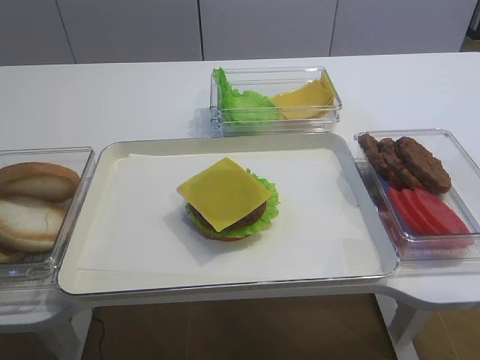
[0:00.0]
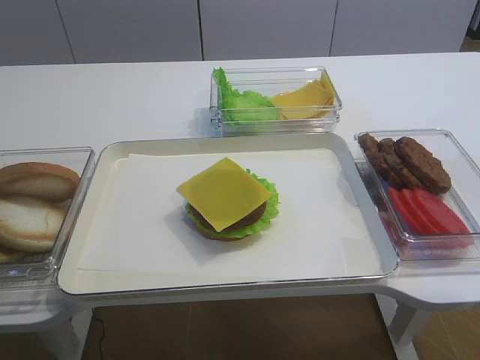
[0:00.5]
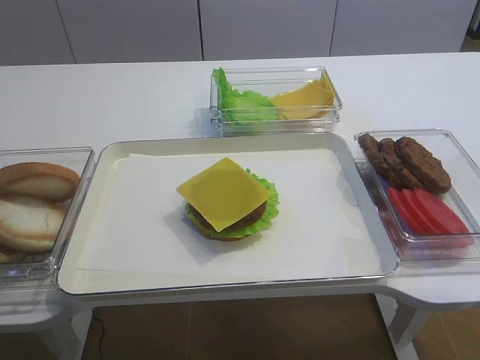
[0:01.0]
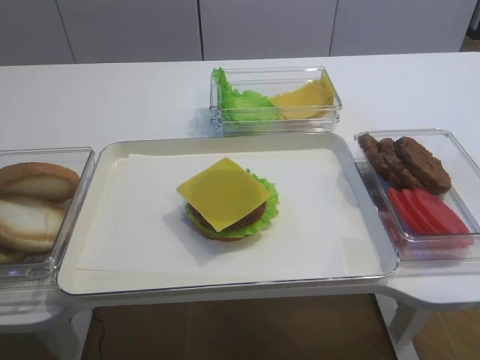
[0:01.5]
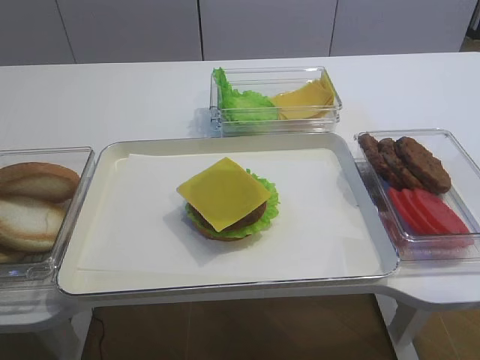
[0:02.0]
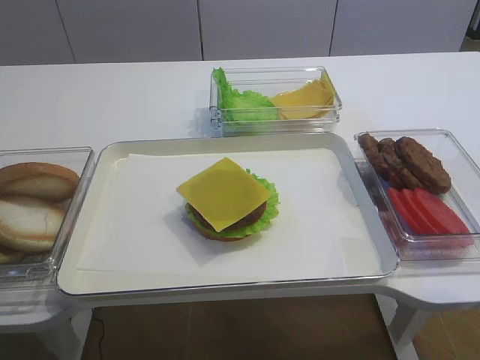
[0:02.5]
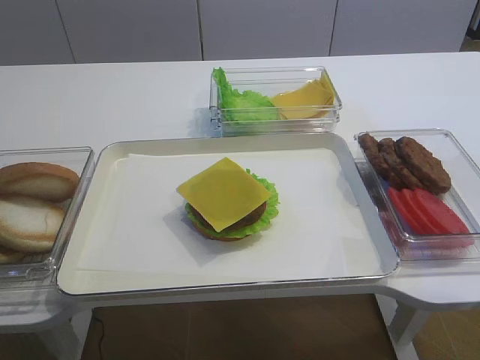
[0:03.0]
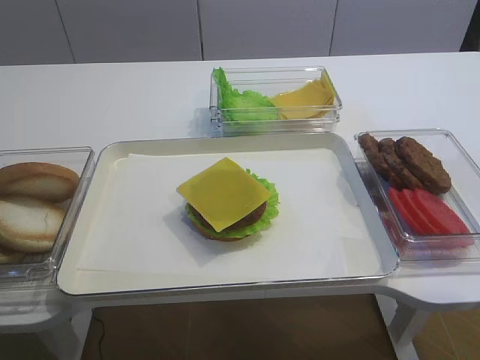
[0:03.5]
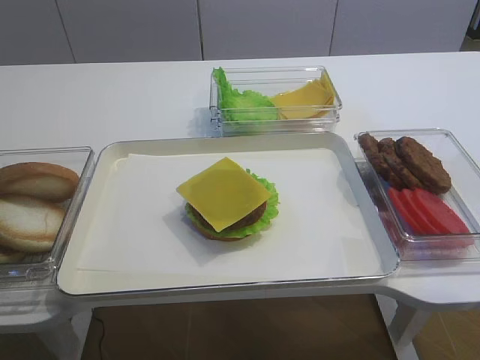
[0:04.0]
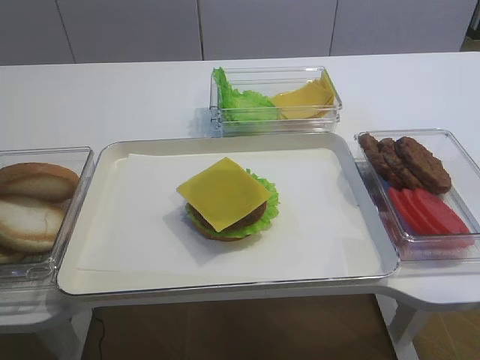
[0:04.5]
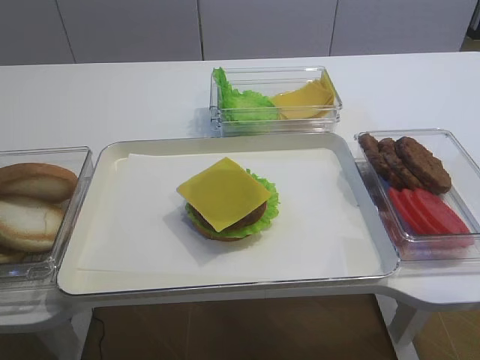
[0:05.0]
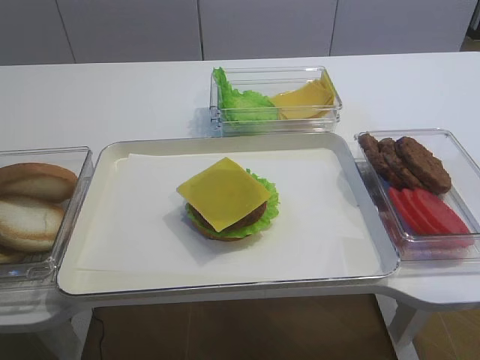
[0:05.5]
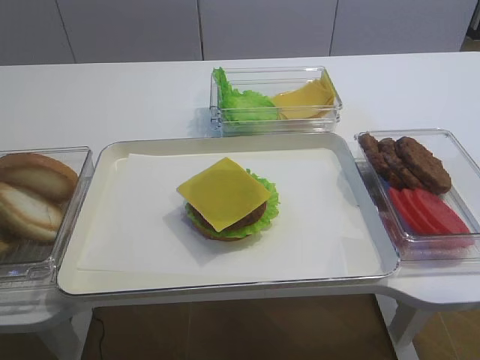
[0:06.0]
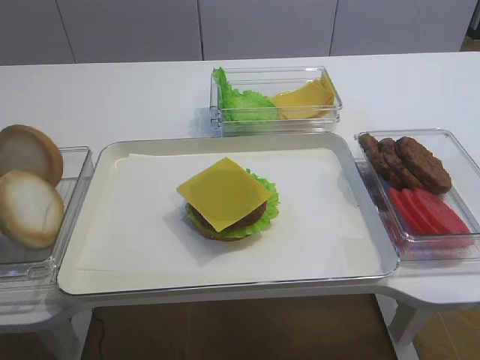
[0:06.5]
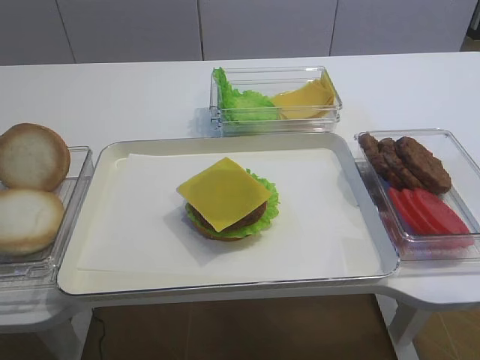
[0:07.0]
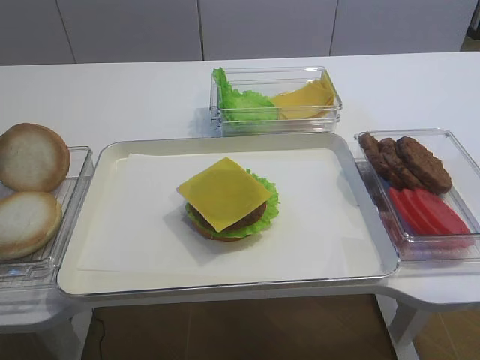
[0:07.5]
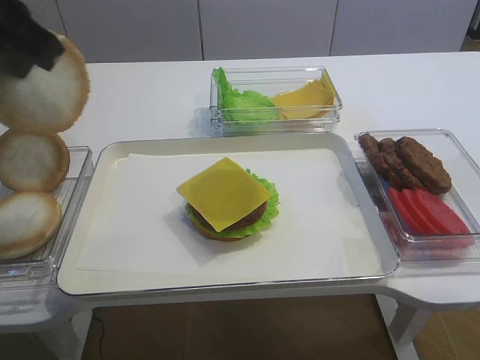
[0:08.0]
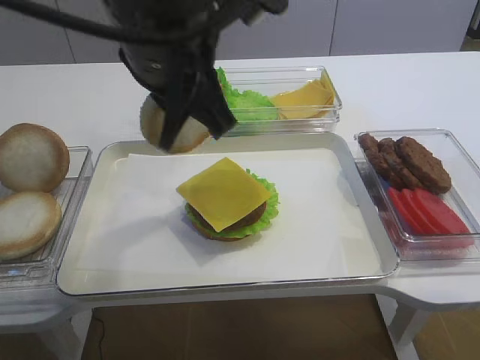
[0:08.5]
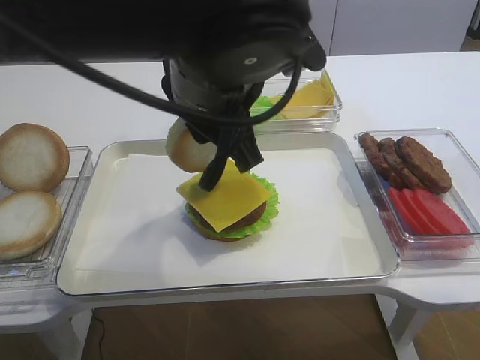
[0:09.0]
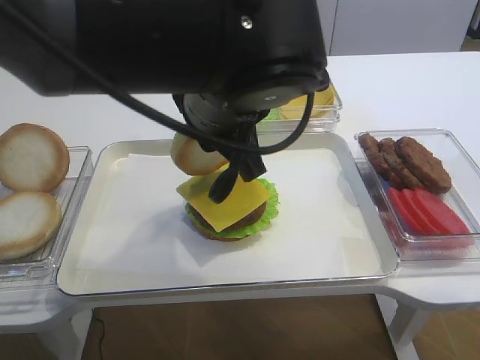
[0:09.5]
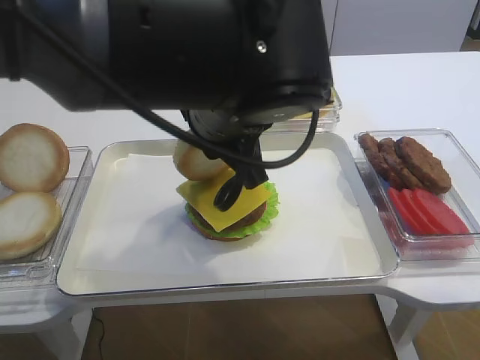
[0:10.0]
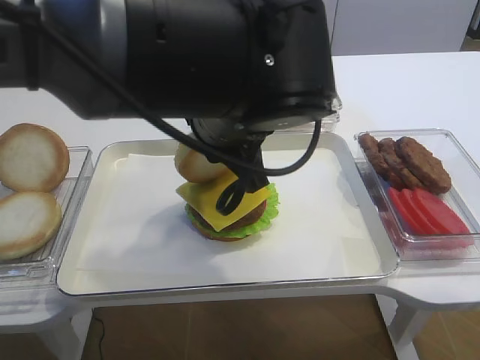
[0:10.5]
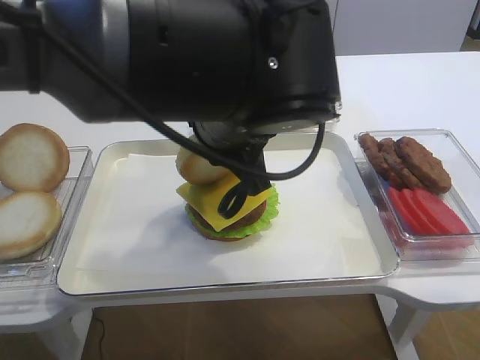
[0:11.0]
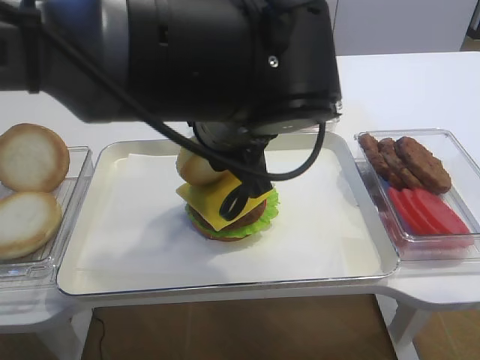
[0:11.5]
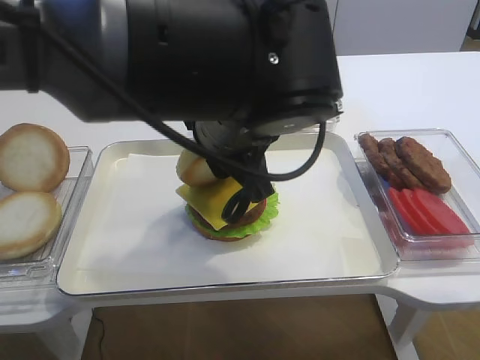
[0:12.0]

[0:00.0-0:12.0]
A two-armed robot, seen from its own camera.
Step, 0:00.0 to 0:07.5: Pick up the hamburger lid with the left gripper.
0:04.0 to 0:06.0: The left gripper closes.
0:06.0 to 0:08.0: The left gripper is displaced upward and to the right by roughly 20 cm.
0:08.0 to 0:10.0: The left gripper goes roughly 20 cm to the right and downward.
0:10.0 to 0:12.0: The left gripper opens.

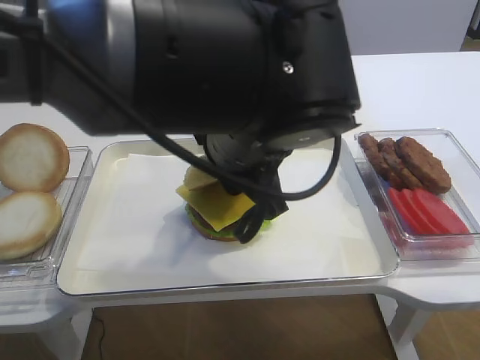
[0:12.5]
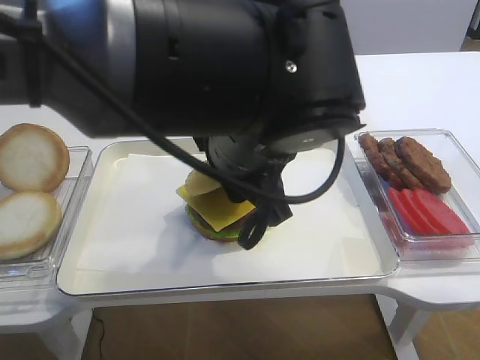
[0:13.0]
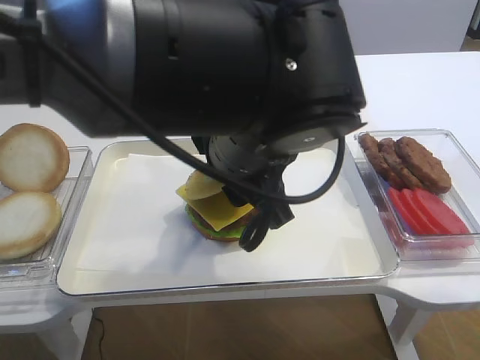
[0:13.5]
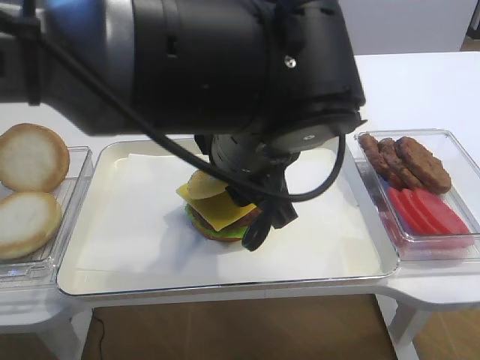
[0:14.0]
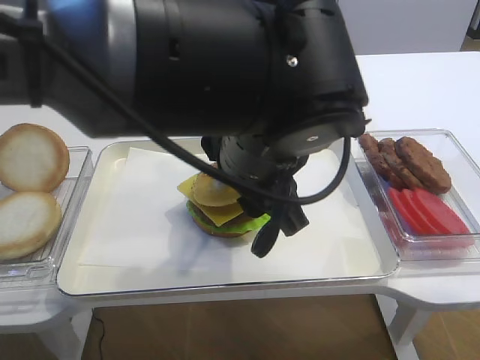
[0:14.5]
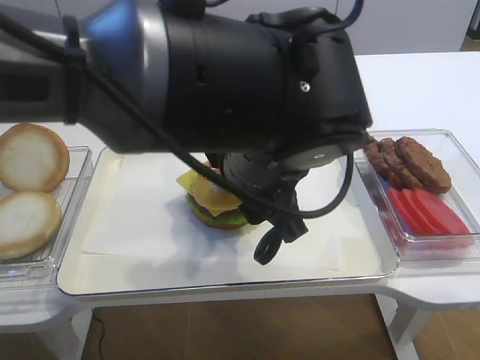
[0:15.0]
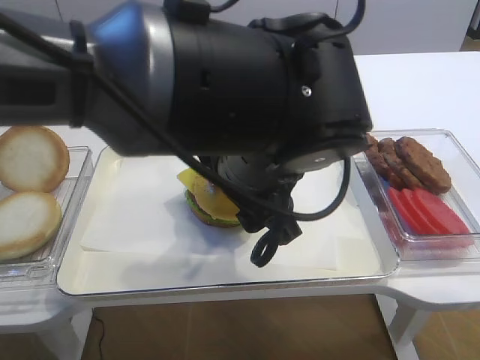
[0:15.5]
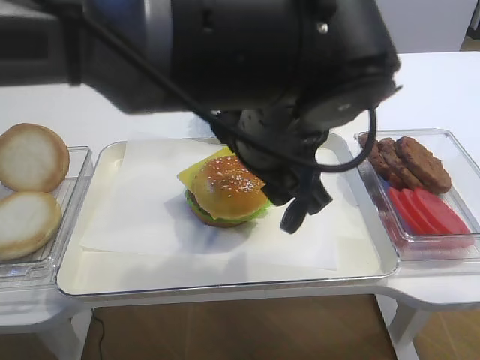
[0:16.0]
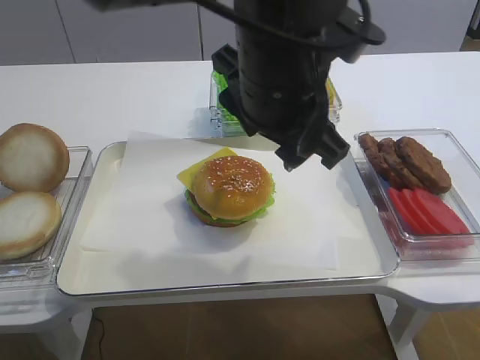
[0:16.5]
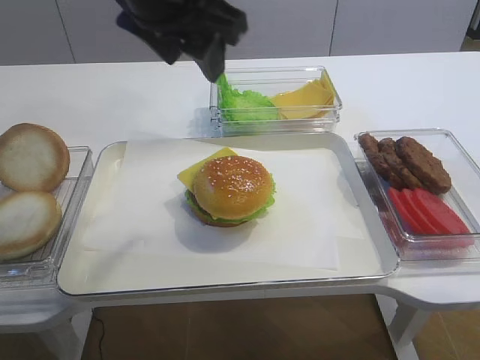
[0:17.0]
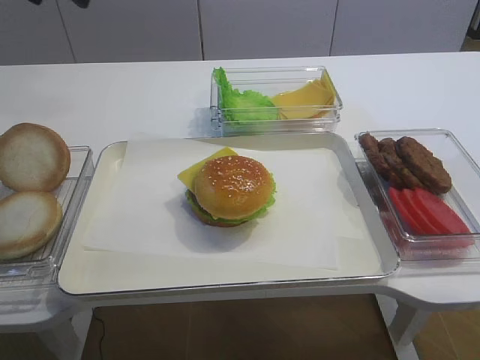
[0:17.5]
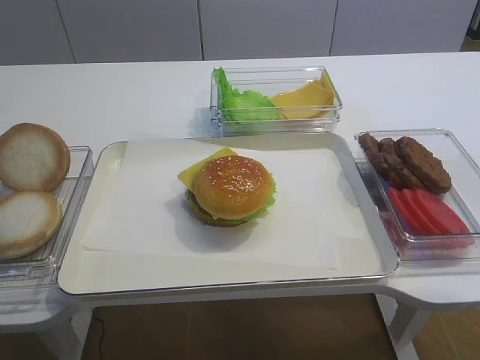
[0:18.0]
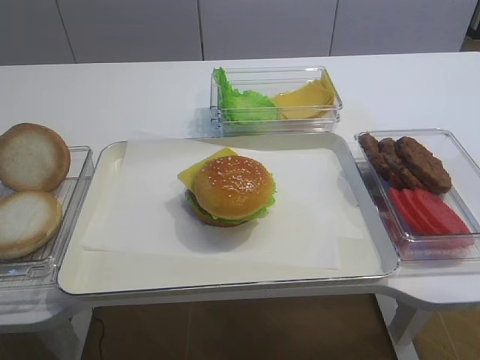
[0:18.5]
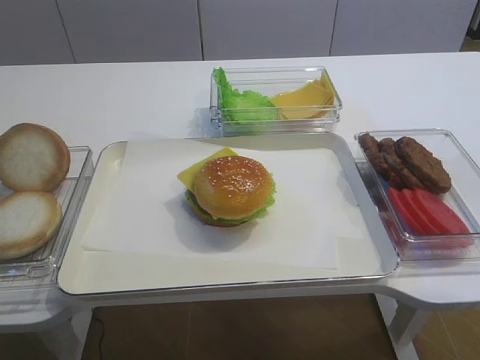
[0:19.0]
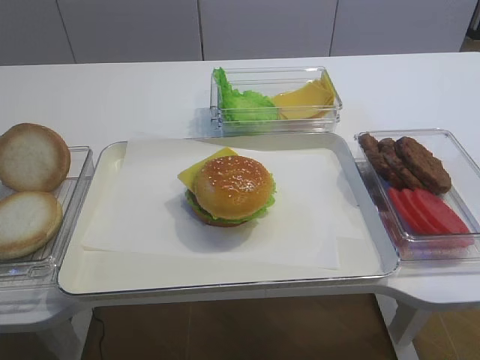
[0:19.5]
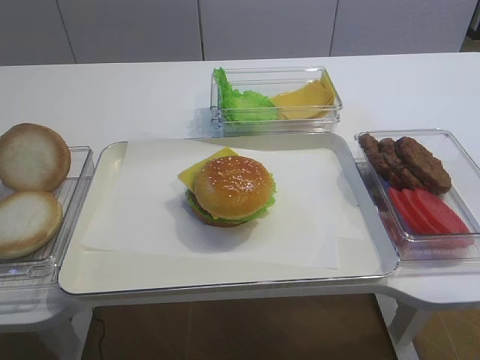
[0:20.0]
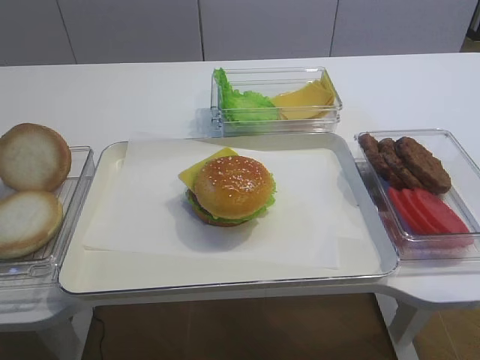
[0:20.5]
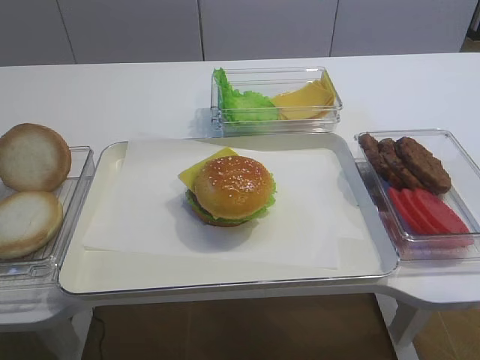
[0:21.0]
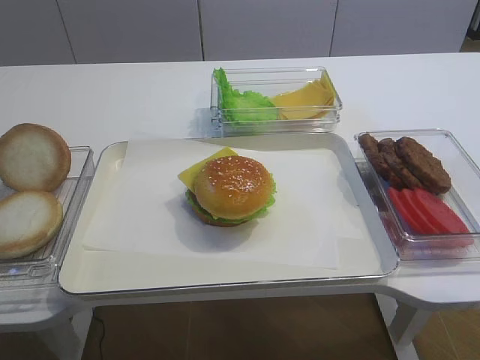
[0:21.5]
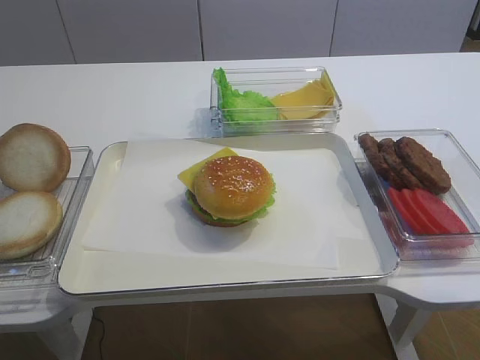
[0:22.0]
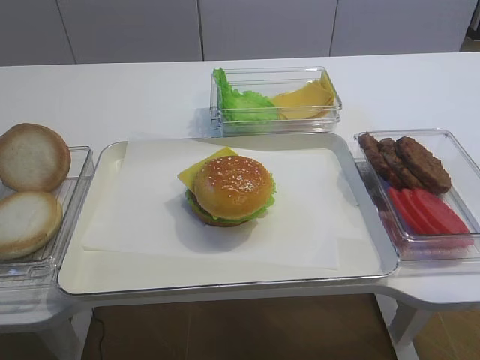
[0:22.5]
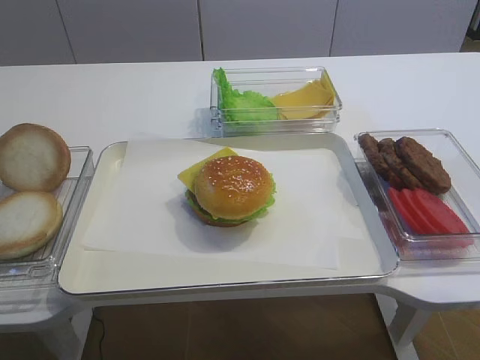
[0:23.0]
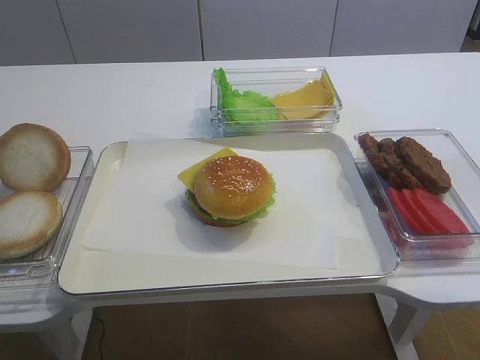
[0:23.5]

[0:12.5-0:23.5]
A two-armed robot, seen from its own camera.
Step, 0:12.5 to 0:15.5: Place the hamburger lid on the cheese slice with the left gripper.
0:12.5 to 0:14.5: The grippers make only small movements.
0:16.0 to 0:18.0: The left gripper heads to the left and upward, covering about 35 cm.
0:21.5 to 0:23.5: Both grippers stay about where they are.

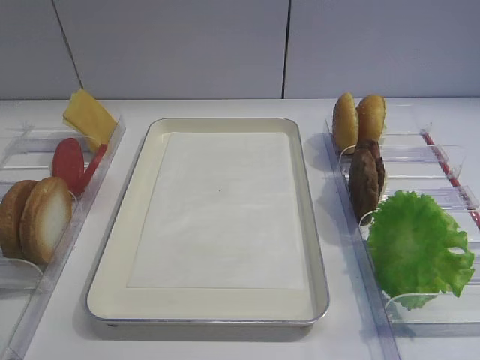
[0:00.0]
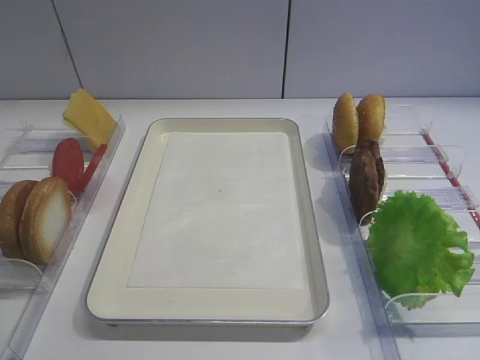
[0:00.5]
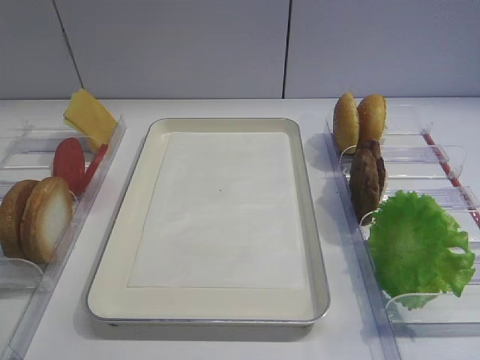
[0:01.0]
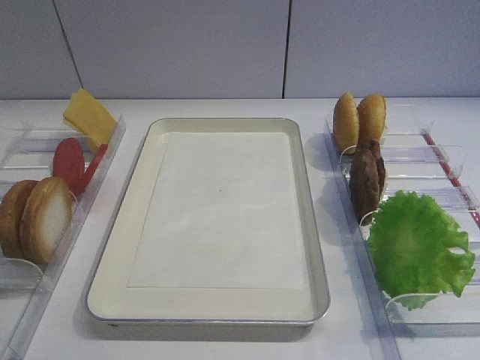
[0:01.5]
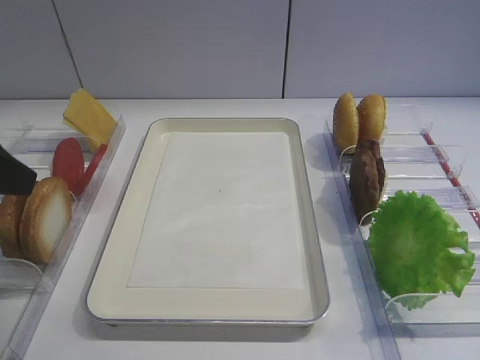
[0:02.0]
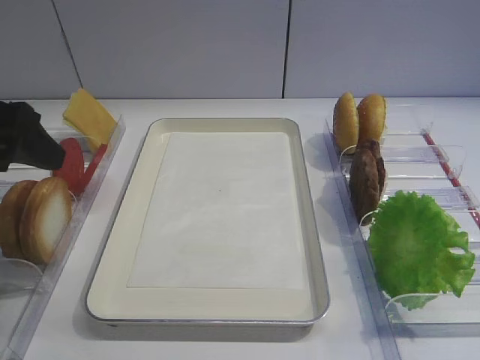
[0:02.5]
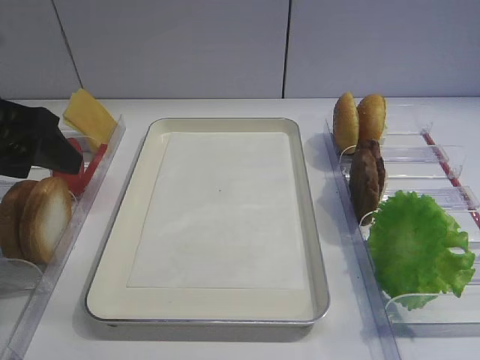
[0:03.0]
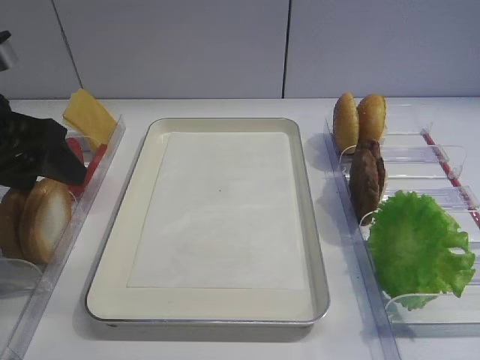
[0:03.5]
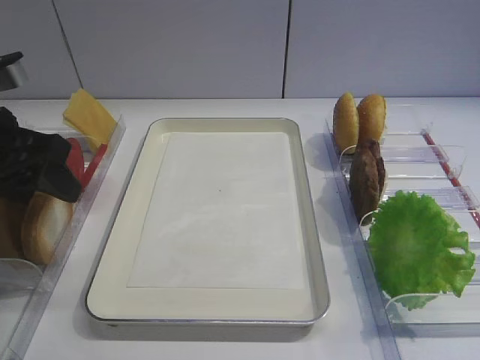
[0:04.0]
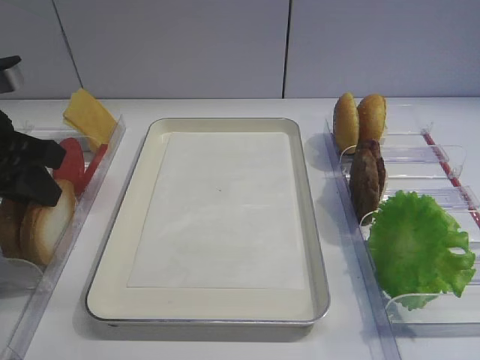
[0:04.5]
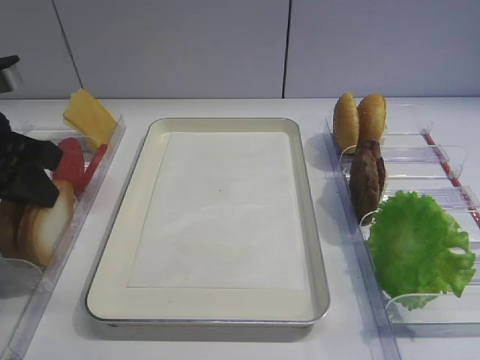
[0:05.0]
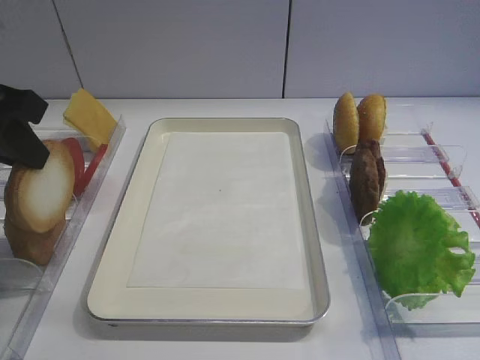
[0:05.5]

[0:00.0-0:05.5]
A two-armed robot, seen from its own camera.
Step, 0:00.0 to 0:05.0: Pick up the bread slice with the left gripper.
0:02.0 to 0:03.5: The left gripper travels forward by about 10 cm.
0:03.5 to 0:05.5: The left gripper closes up.
